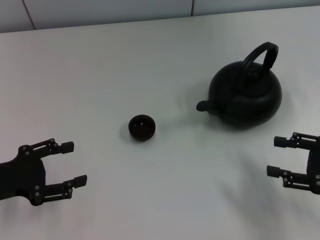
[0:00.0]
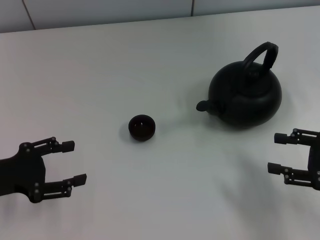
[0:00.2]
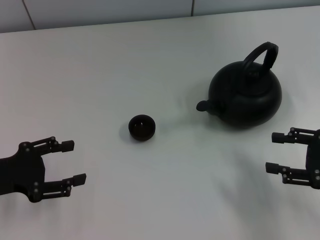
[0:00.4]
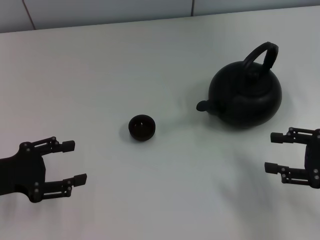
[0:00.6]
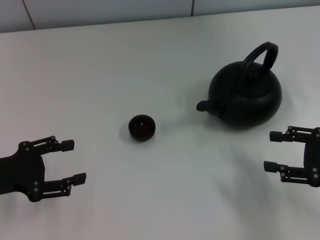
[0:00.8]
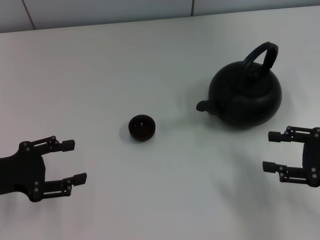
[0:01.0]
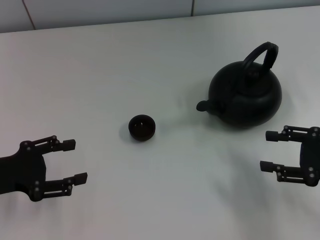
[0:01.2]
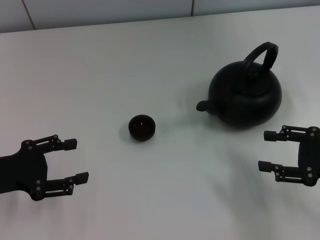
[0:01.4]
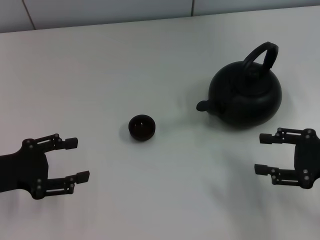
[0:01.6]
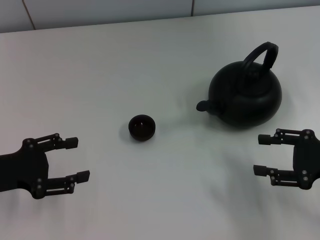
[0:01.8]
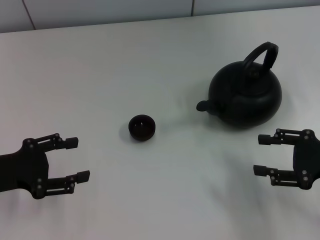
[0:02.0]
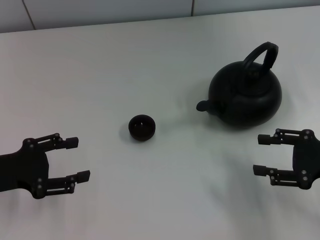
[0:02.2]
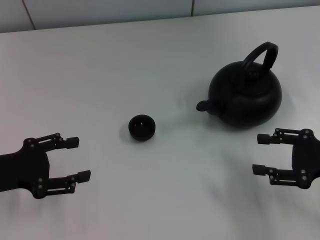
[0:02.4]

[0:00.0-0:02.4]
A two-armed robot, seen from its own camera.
Task of the whole recording: Grasp the handle of the teapot with one hand and pour tea into the teacup.
0:00.0 to 0:01.2: The grippers move only a little.
0:01.2 to 0:02.4: The two grippers keep their place.
